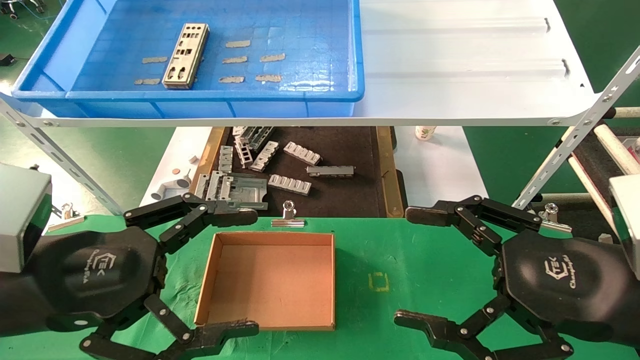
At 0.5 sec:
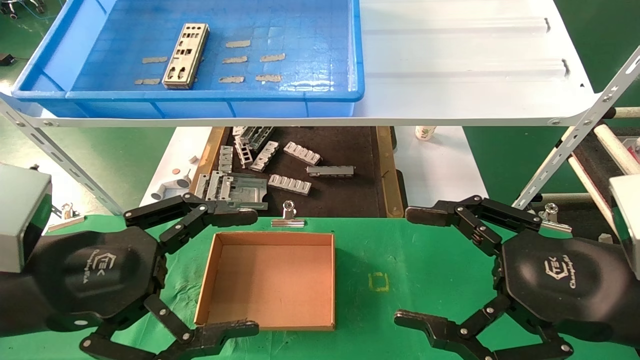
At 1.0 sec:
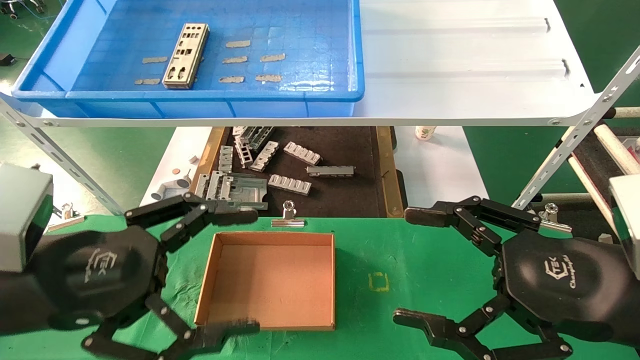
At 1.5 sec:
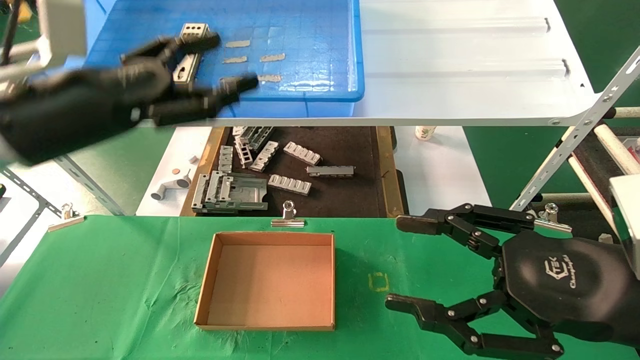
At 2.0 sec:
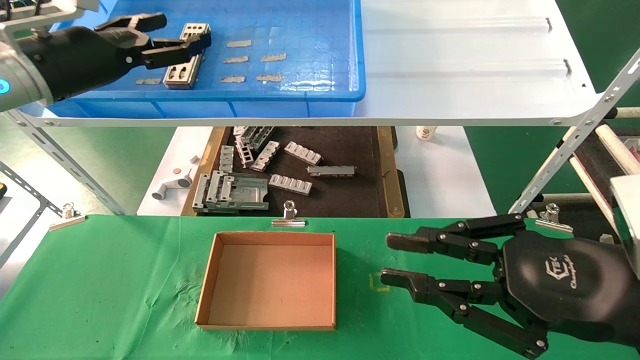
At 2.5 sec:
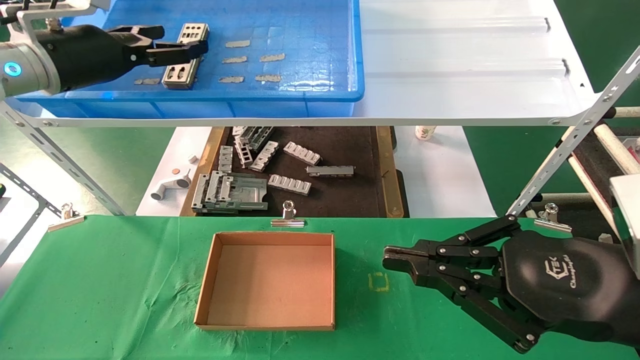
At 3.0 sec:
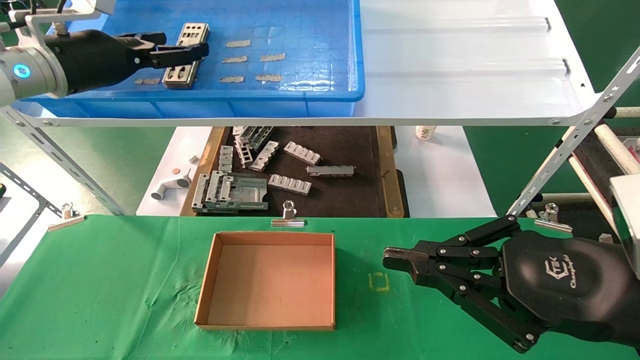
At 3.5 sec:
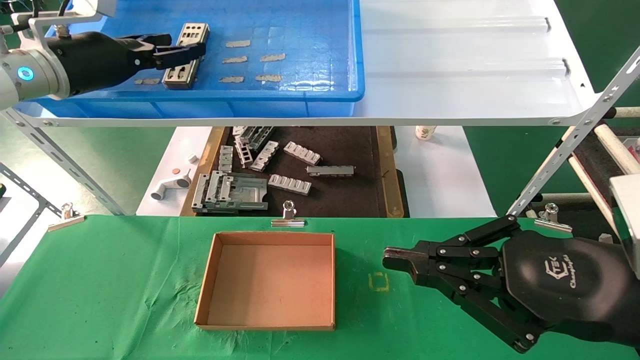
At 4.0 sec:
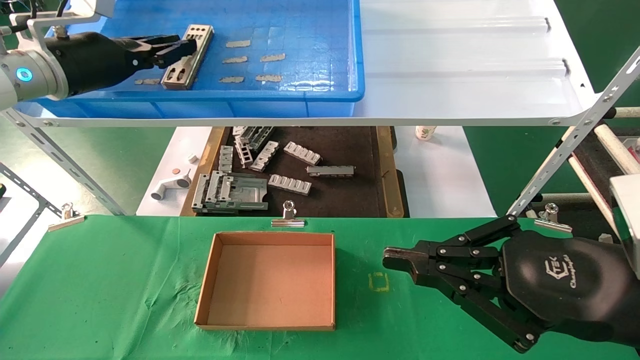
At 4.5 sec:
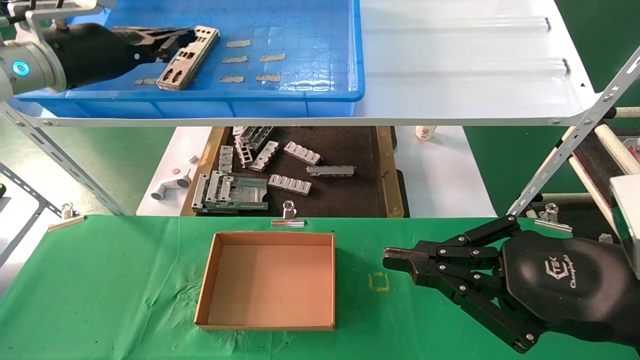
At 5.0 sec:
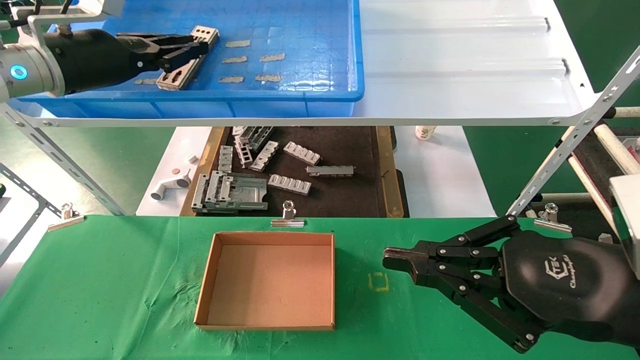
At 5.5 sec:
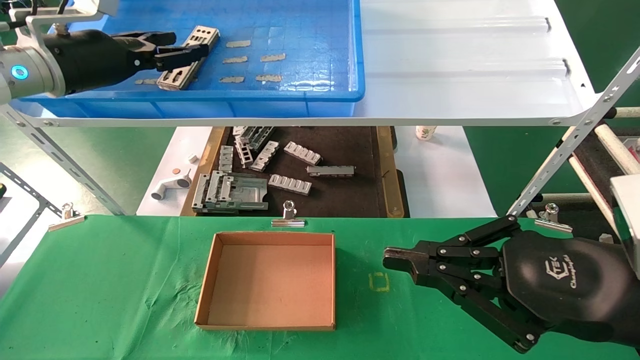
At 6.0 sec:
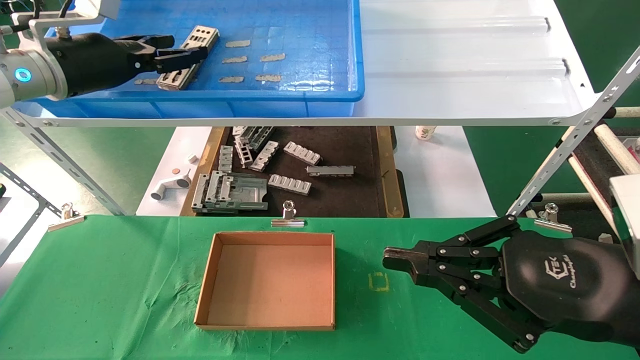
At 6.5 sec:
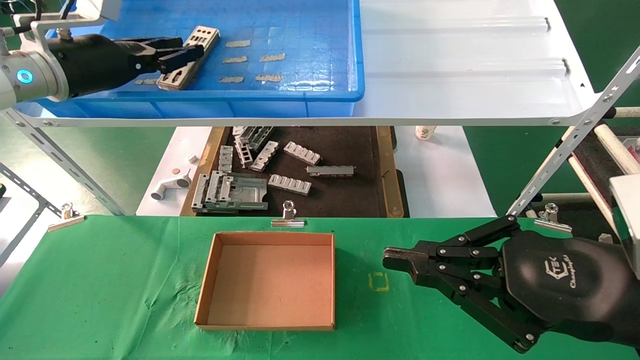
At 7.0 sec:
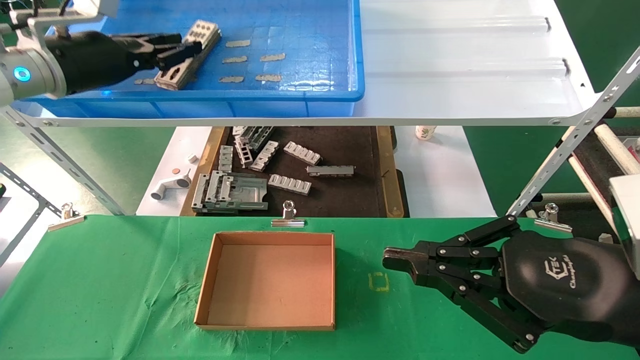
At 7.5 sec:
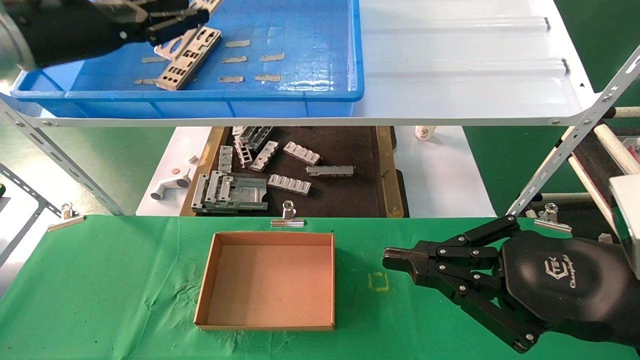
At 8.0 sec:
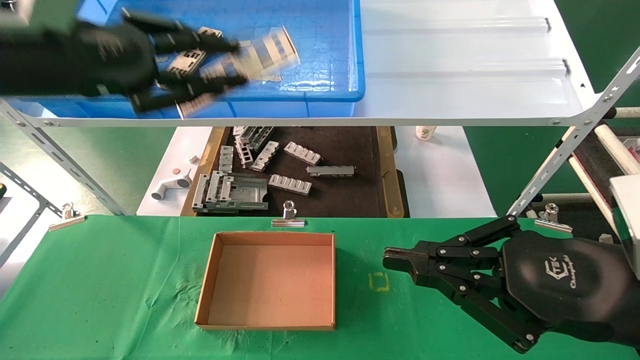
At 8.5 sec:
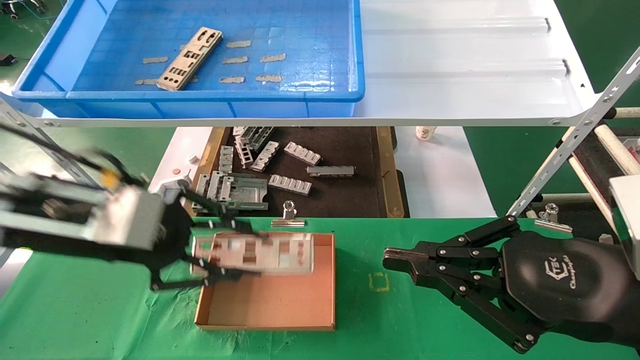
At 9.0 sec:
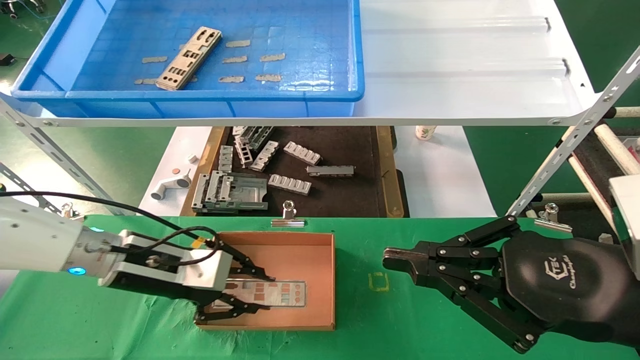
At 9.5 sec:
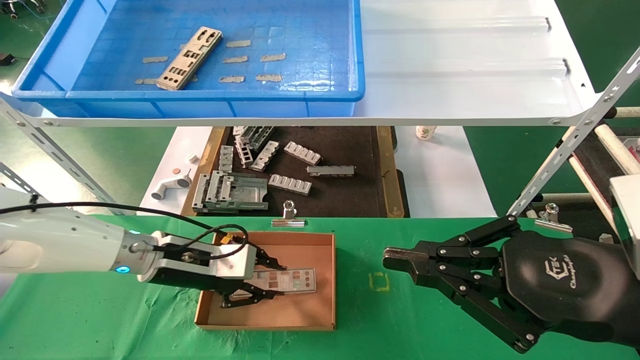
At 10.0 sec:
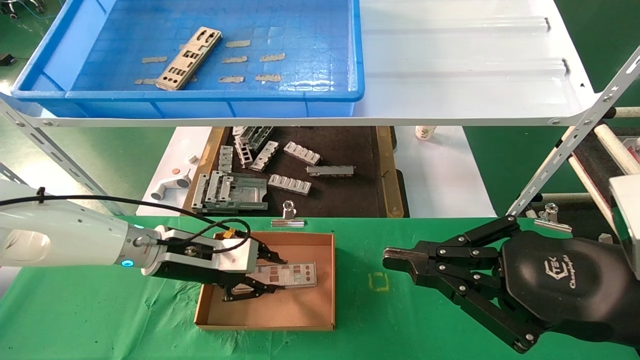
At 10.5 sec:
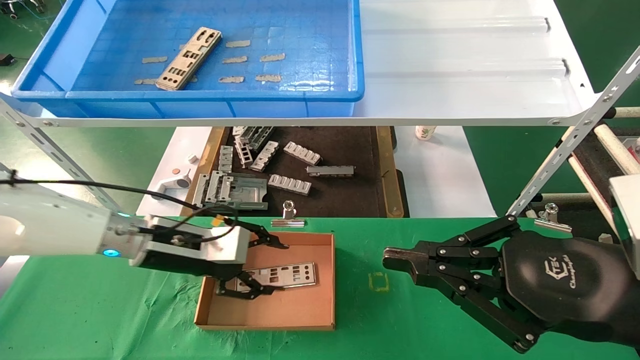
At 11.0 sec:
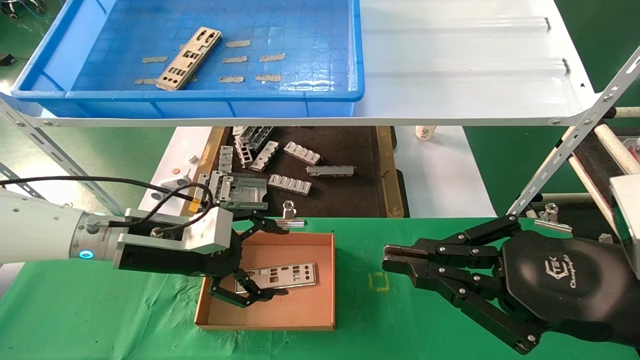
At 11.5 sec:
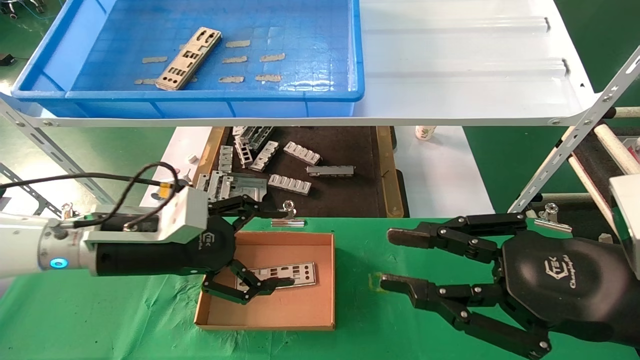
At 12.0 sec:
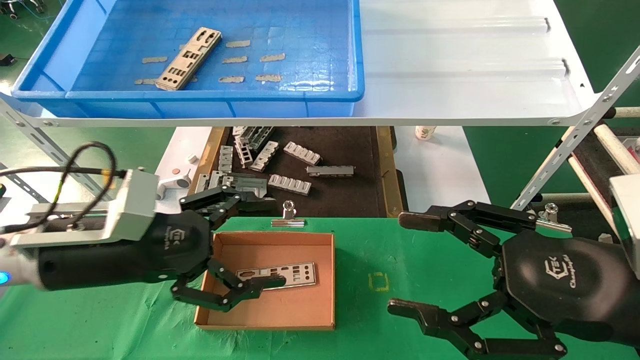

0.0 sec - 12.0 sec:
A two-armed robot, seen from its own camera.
Task of the whole recording: pick up the parts on the tray and put them in the cardboard box.
Step, 1.5 sec - 7.0 sec: Pick up the IO bracket from the container box.
Step, 7.5 sec - 10.0 sec: Place the IO bracket into the ingredient slot.
0.0 sec - 2.0 sec: The right gripper closes, while the left gripper moves forward and upward, approximately 25 cm.
2.0 sec - 4.0 sec: The right gripper closes its fingers. The left gripper closes.
4.0 sec - 6.0 sec: The left gripper opens up.
6.0 sec - 8.0 sec: The left gripper is displaced backward by about 15 cm, and closes its fingers.
8.0 sec - 10.0 sec: The left gripper is displaced downward and forward by some 30 cm.
10.0 sec - 12.0 sec: The left gripper shifts approximately 15 cm backward and upward, and opens, while the right gripper opens its fingers.

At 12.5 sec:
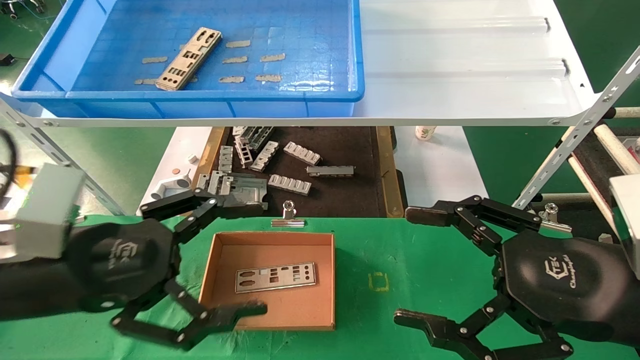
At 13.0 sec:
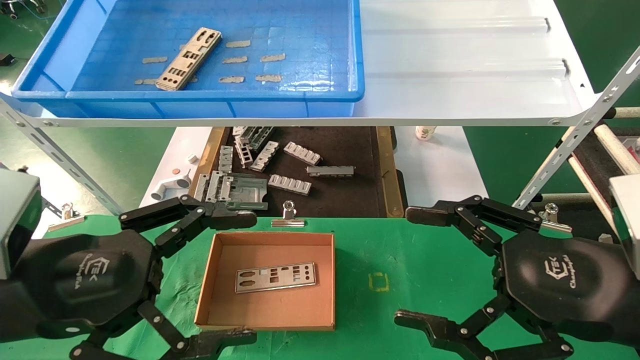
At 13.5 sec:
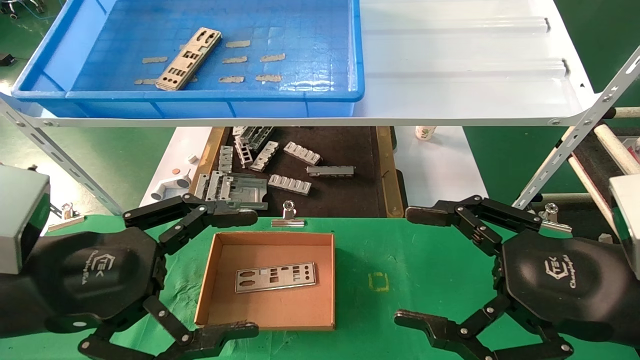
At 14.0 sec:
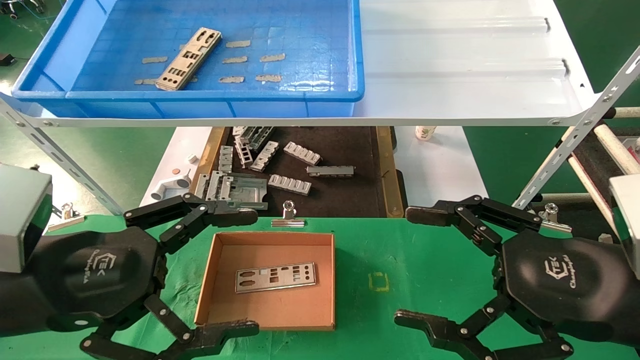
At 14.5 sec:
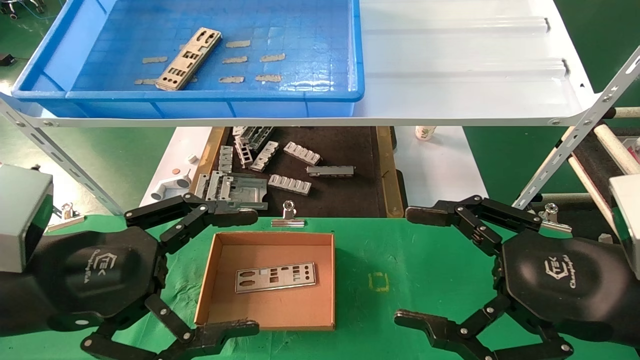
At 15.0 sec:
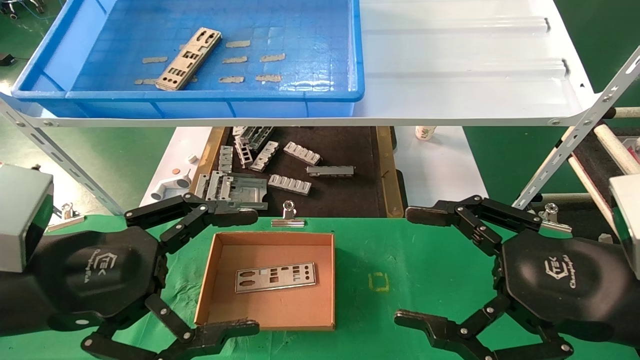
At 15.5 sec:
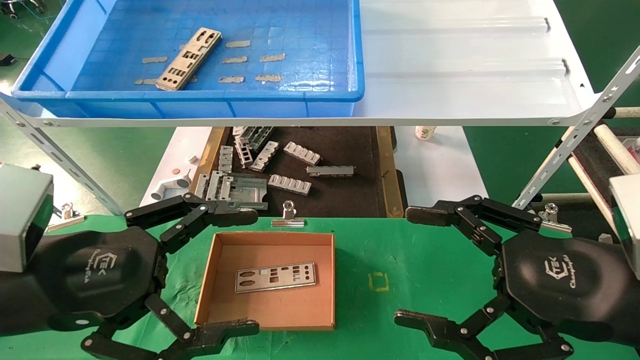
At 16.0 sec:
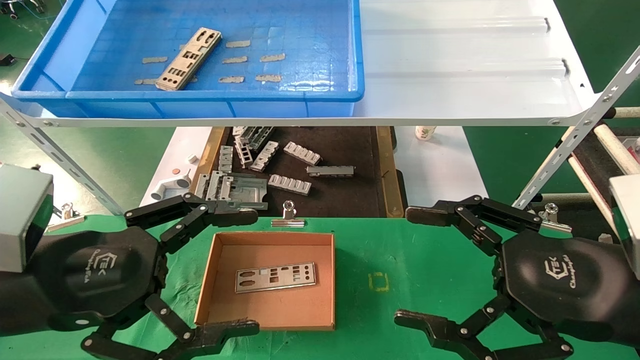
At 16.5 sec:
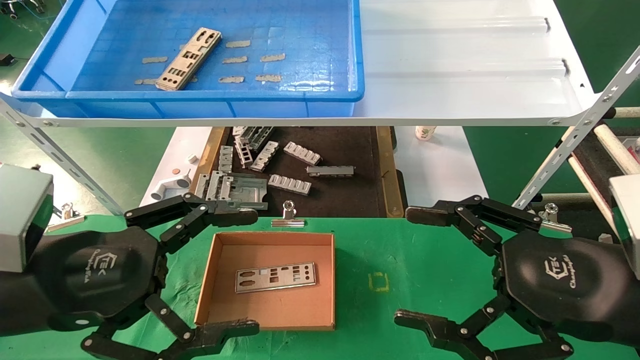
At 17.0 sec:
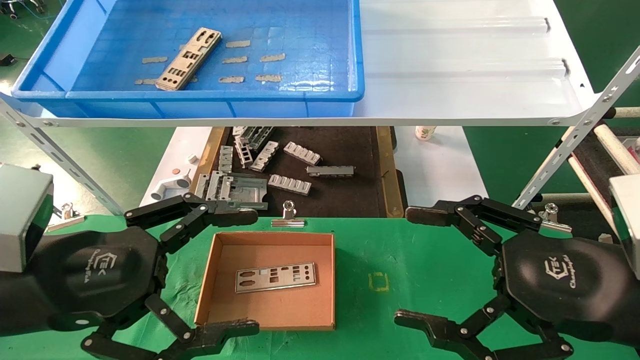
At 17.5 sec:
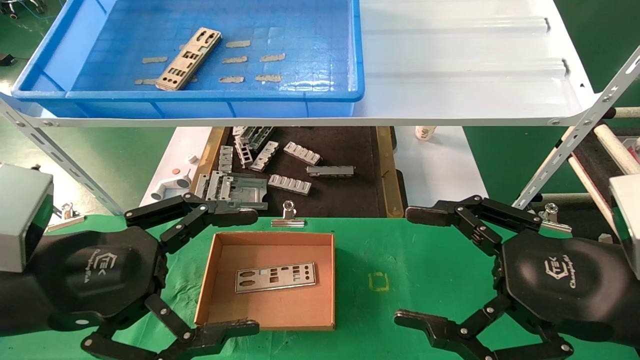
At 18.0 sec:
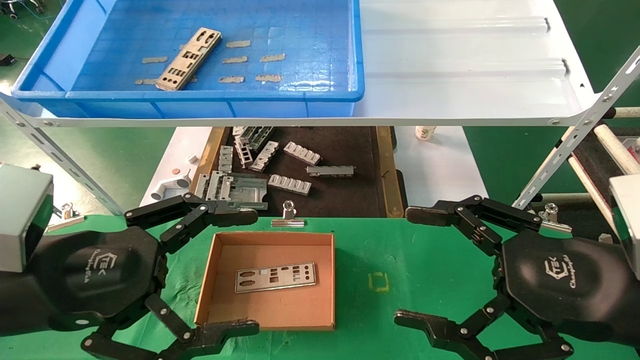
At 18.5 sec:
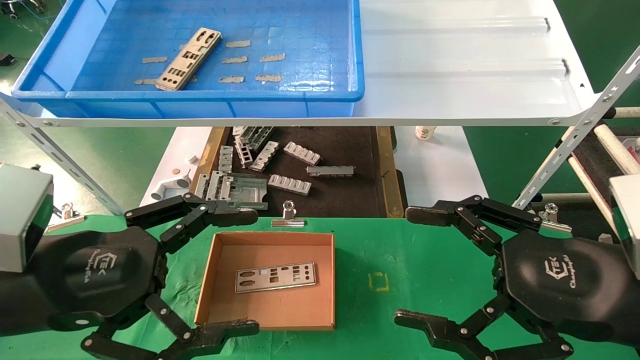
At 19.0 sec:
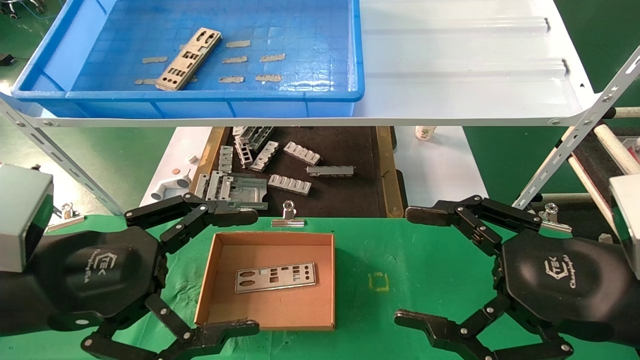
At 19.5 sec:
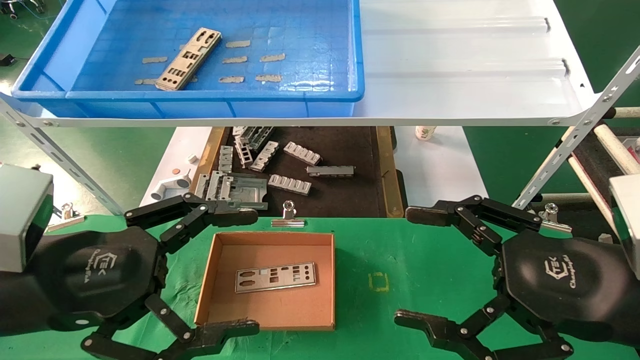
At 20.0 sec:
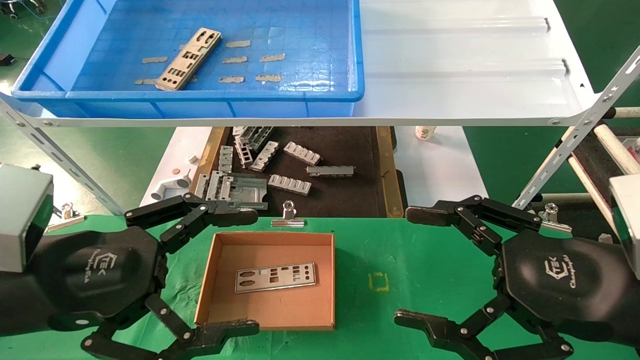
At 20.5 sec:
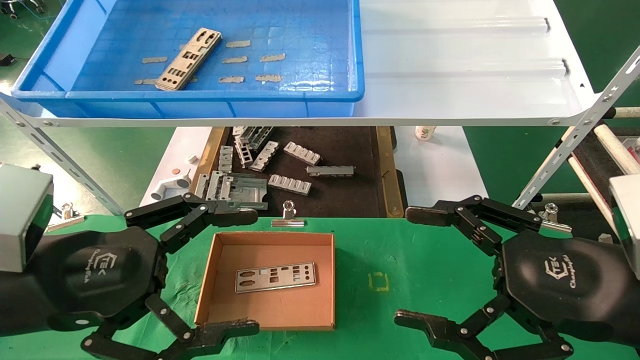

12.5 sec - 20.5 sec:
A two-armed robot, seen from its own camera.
Task of the whole recording: pick up the parts on the tray and put them in the cardboard box.
12.5 sec - 14.5 sec: The grippers make only small movements.
14.5 sec - 20.5 sec: Both grippers stay put.
